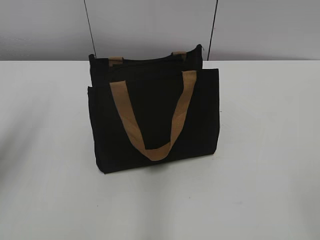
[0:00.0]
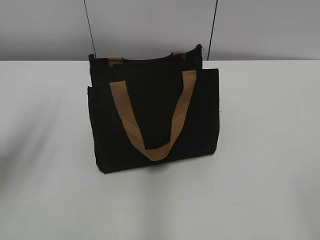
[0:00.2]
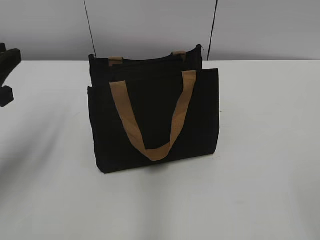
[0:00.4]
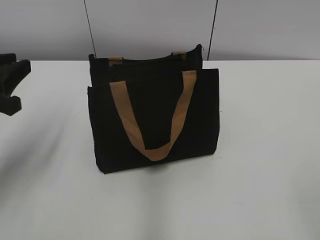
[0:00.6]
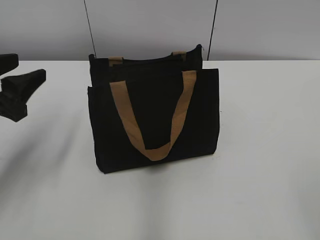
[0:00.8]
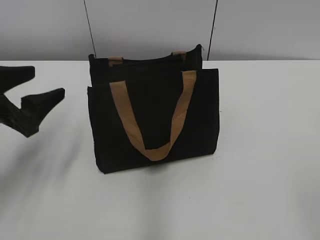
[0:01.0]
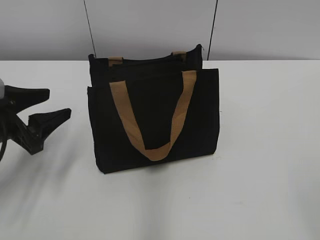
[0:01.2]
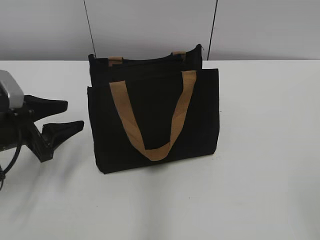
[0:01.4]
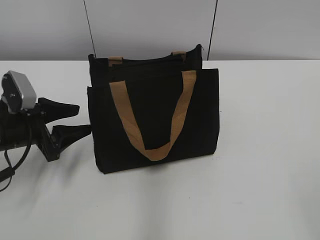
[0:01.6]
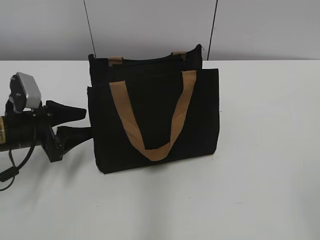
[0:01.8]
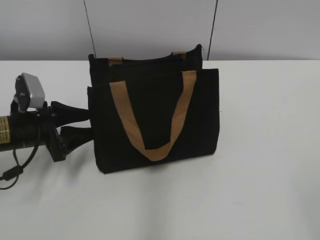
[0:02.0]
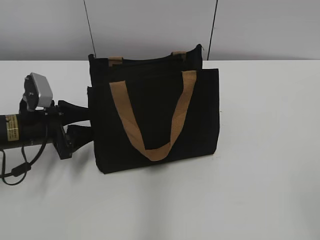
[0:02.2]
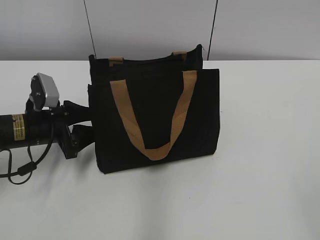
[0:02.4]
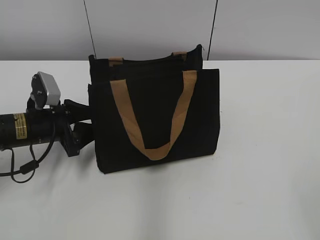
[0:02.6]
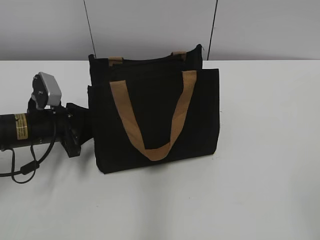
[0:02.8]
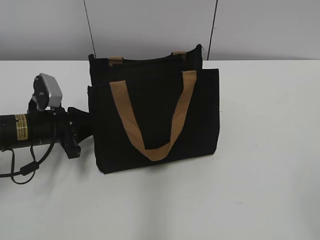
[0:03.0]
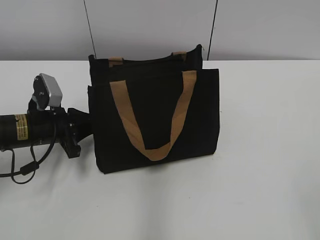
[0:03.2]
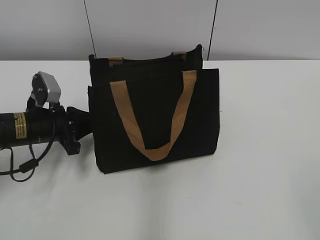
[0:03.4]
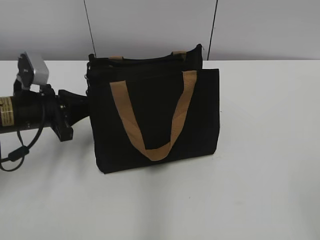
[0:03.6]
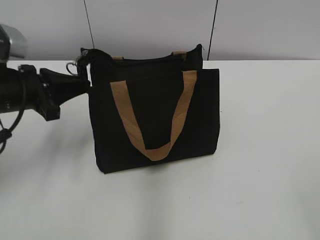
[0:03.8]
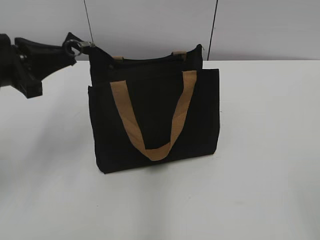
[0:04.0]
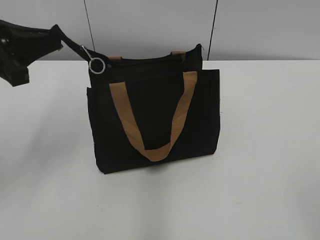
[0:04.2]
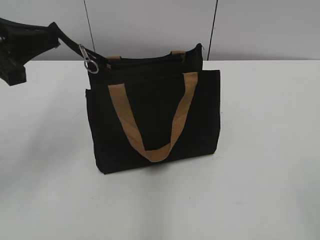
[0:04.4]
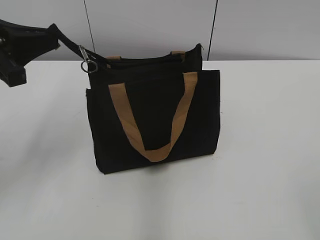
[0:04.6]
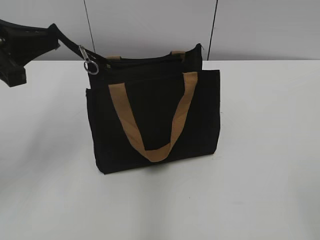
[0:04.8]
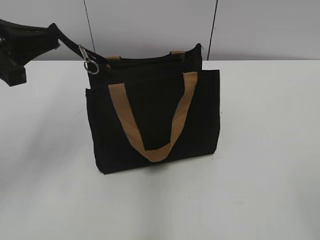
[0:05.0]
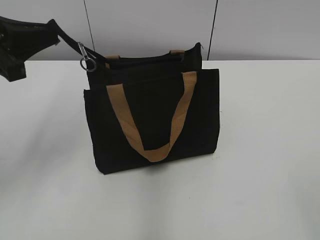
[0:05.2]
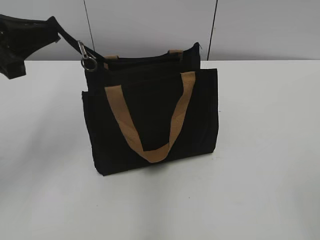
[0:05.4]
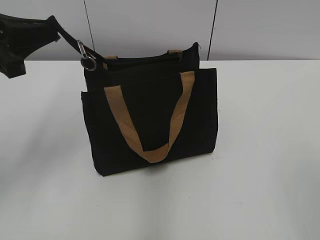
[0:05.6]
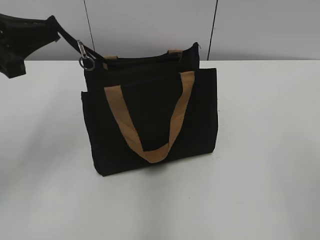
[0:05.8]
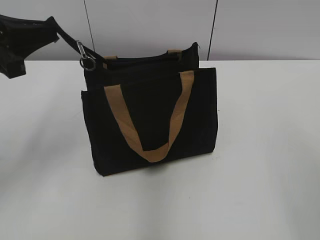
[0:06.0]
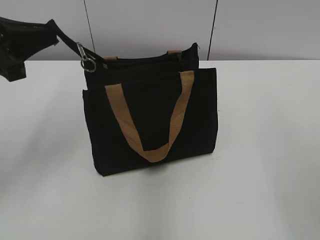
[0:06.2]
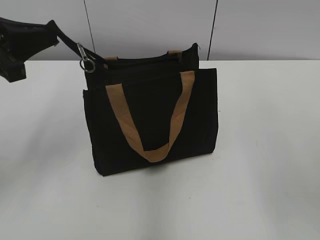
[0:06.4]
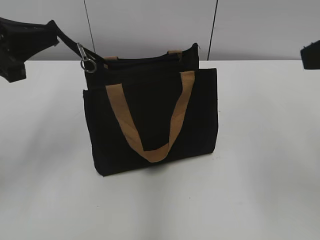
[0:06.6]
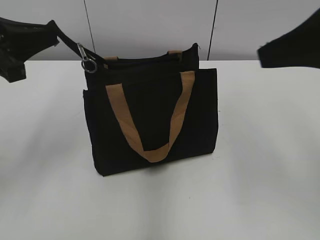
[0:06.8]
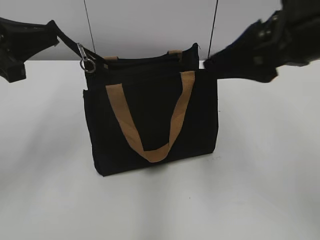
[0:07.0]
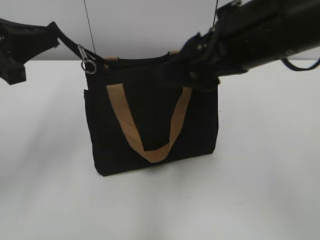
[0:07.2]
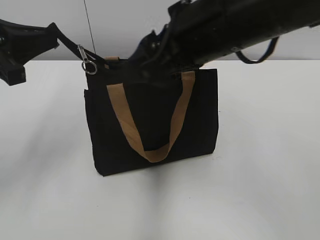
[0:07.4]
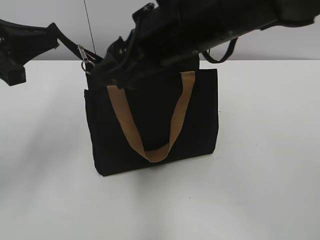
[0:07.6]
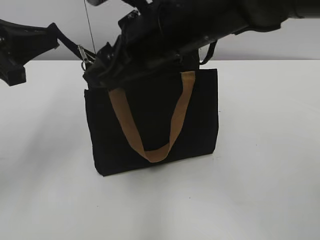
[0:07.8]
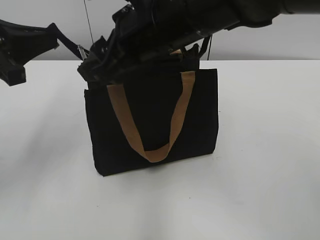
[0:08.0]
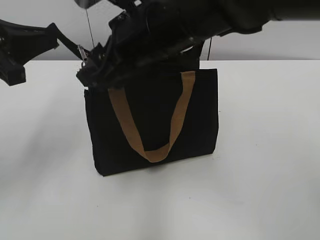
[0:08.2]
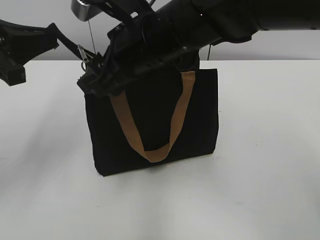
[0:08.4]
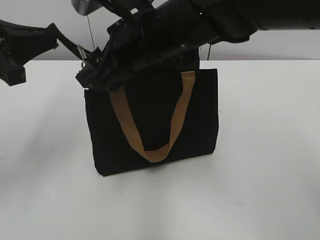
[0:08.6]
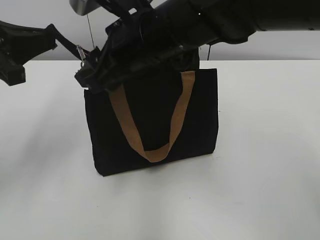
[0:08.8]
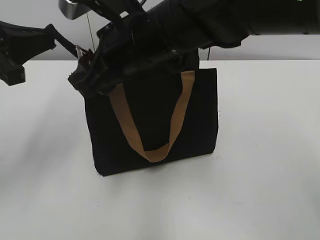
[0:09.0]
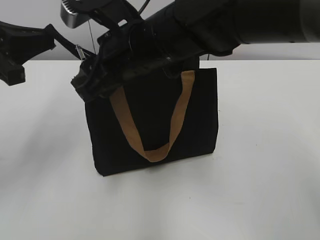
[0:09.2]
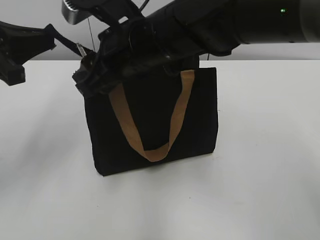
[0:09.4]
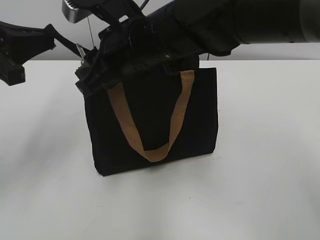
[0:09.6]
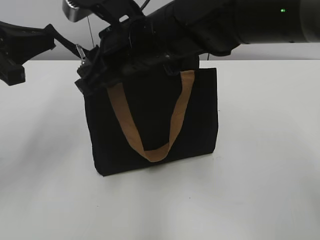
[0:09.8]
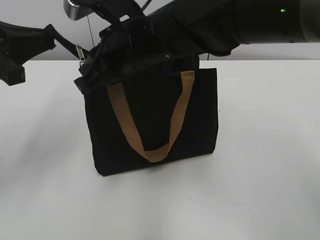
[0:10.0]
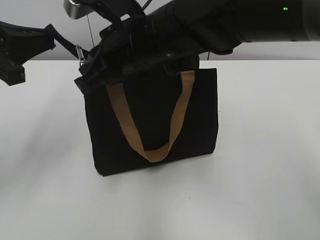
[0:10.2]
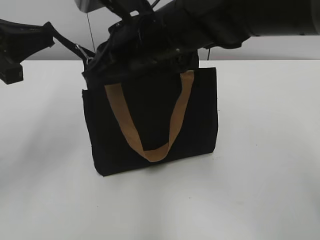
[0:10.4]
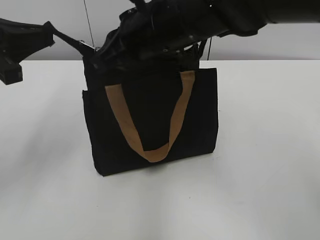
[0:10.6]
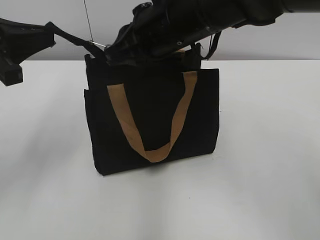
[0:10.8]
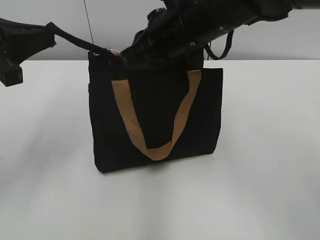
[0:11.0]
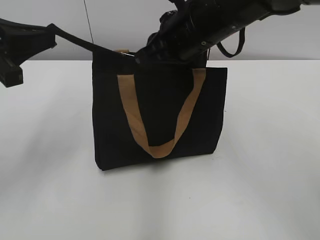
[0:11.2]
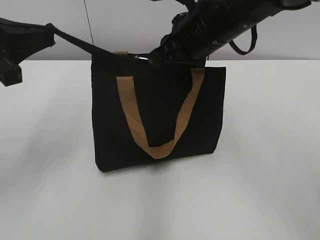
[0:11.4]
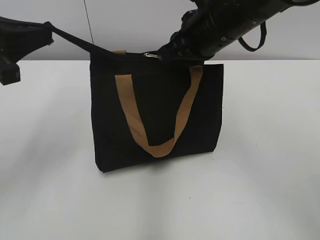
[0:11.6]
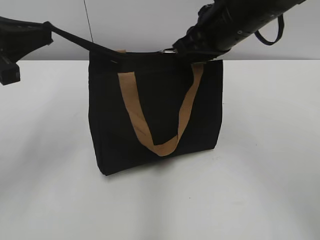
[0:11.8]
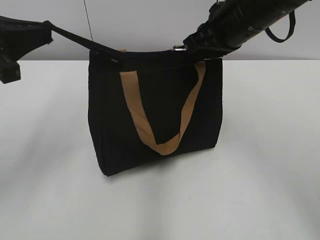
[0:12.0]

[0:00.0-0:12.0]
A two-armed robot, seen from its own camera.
0:00.0 to 0:01.6: The left gripper heads downward and forward, covering roughly 20 cm, and opens its fingers.
0:01.6 to 0:03.0: The left gripper closes up.
0:03.0 to 0:04.4: The left gripper is displaced upward by about 20 cm.
0:04.4 to 0:06.0: The right gripper travels upward and forward by some 10 cm.
0:06.0 to 0:07.6: The right gripper goes approximately 30 cm to the left and forward.
0:07.6 to 0:09.0: The right gripper moves some 5 cm.
0:09.0 to 0:10.4: The right gripper closes its fingers.
0:10.4 to 0:12.0: The right gripper is displaced to the right by roughly 15 cm.

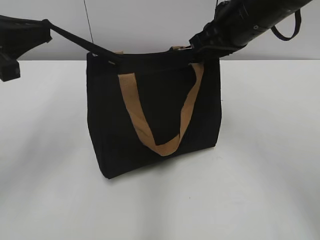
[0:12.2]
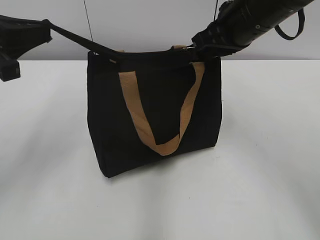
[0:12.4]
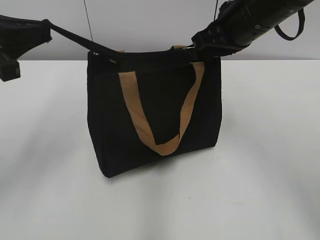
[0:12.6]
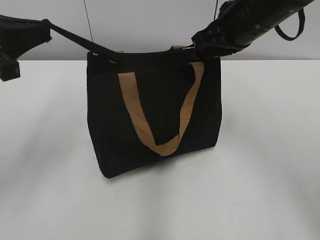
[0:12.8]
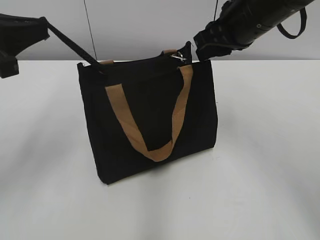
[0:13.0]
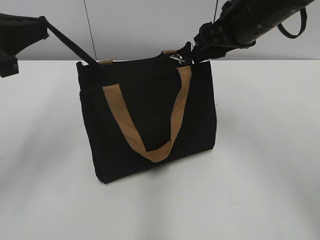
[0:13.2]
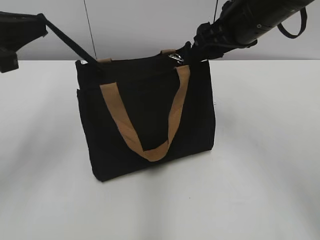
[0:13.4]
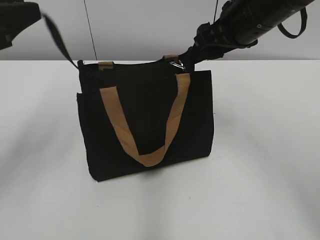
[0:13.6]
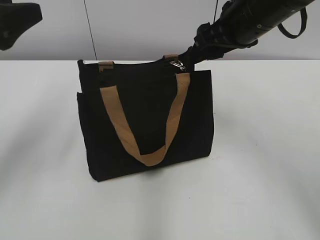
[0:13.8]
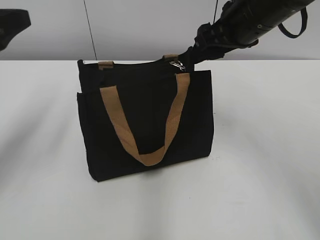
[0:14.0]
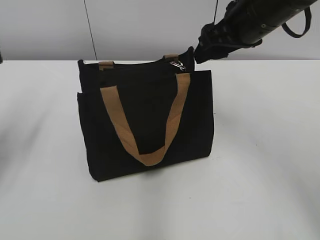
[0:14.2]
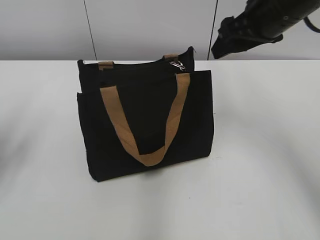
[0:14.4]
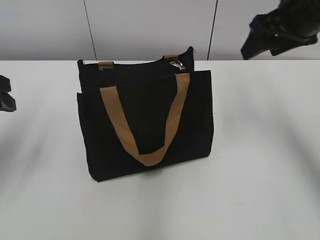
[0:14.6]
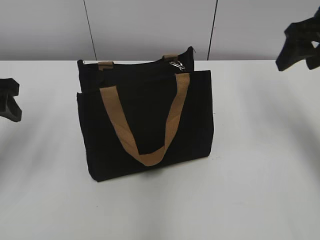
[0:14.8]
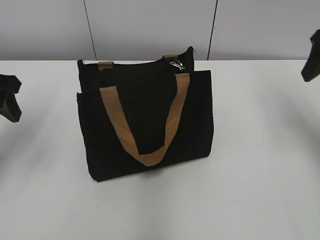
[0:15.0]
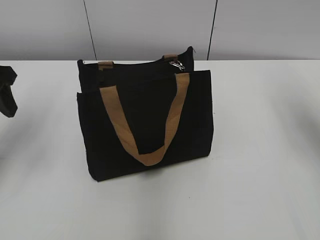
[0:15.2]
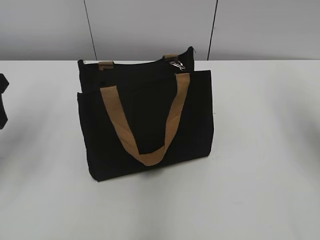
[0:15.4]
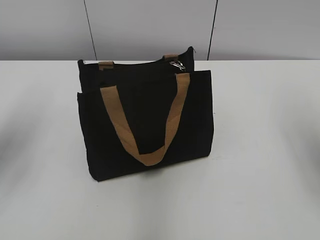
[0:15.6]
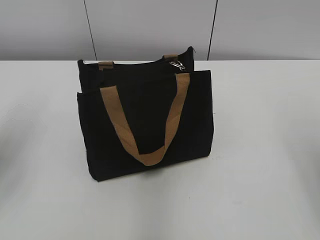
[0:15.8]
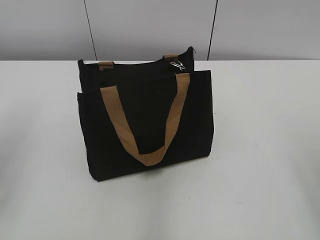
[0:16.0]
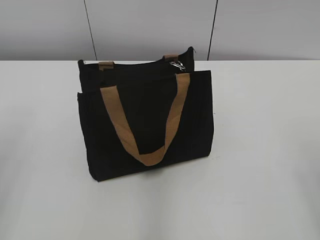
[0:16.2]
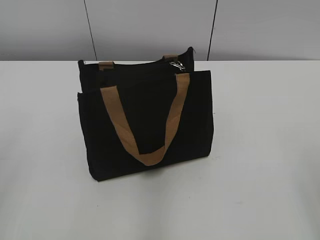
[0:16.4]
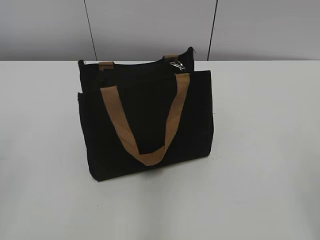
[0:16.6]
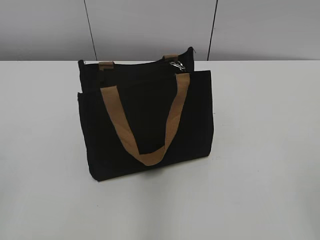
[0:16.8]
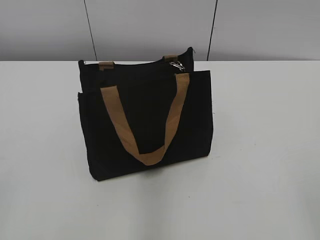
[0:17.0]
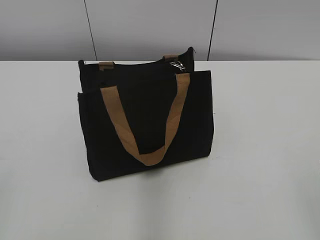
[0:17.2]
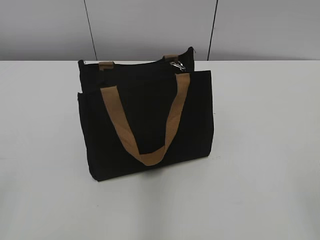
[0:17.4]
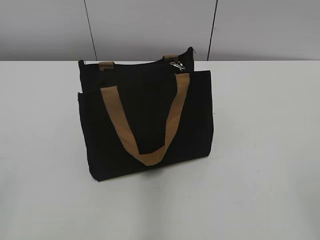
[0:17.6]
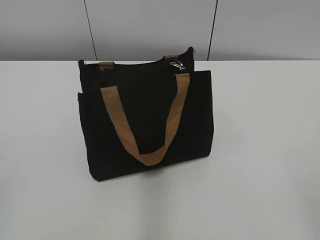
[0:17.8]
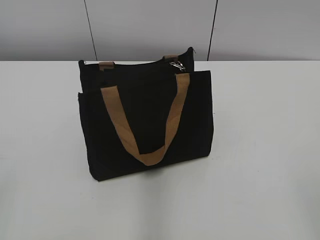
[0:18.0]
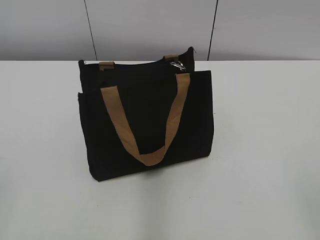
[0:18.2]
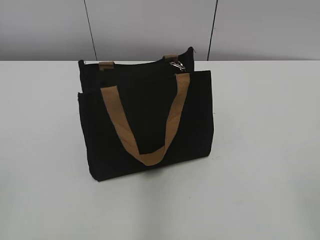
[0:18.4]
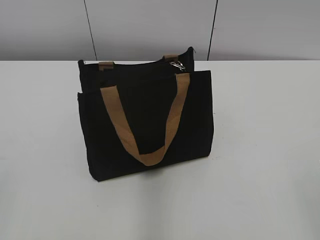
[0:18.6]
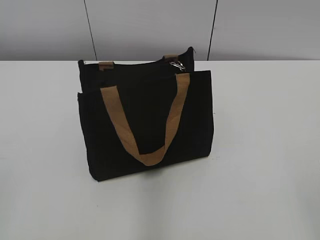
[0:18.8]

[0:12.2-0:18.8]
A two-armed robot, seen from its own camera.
Step, 0:13.0 to 0:13.6: Grab the zipper with your left hand.
0:12.2 to 0:13.8: The right gripper opens. The left gripper opens its fingers.
0:13.8 to 0:15.4: The right gripper heads to the right, covering roughly 15 cm.
0:15.4 to 0:17.2: The two grippers go about 30 cm backward.
0:17.2 to 0:18.8: Both grippers stay put.
